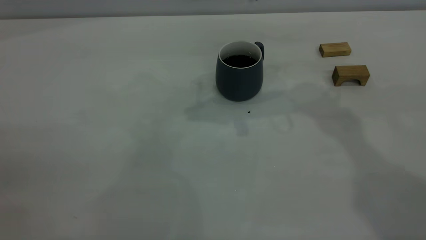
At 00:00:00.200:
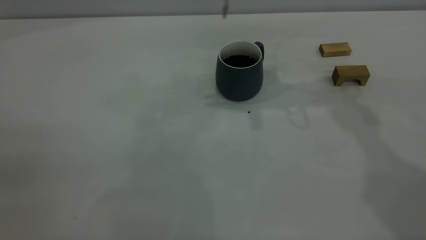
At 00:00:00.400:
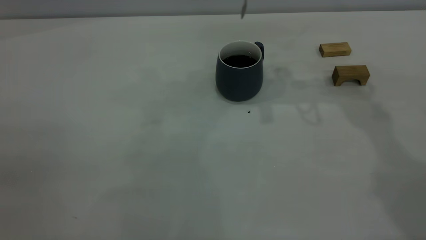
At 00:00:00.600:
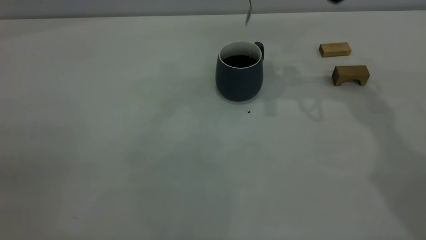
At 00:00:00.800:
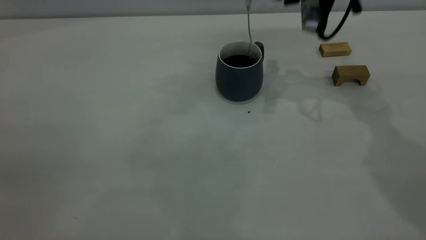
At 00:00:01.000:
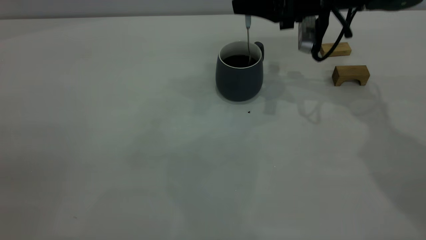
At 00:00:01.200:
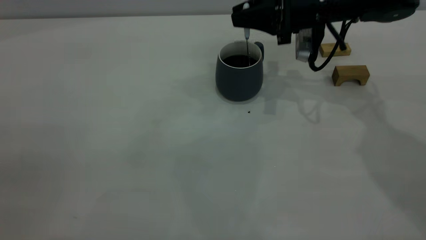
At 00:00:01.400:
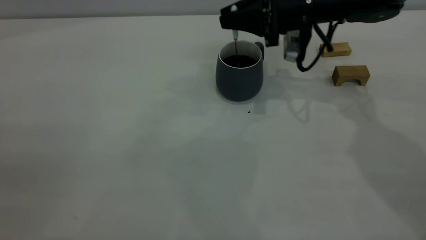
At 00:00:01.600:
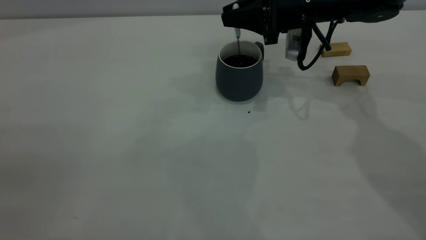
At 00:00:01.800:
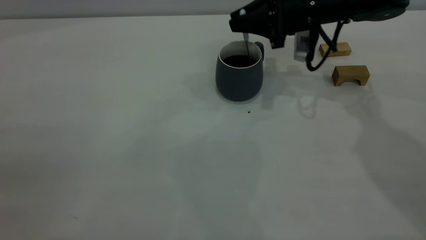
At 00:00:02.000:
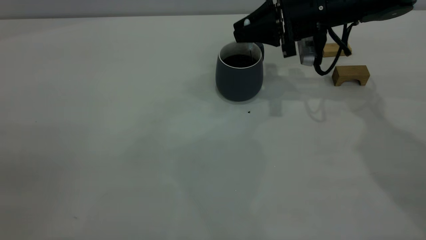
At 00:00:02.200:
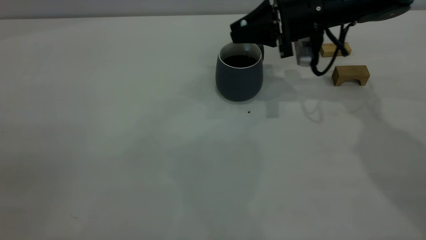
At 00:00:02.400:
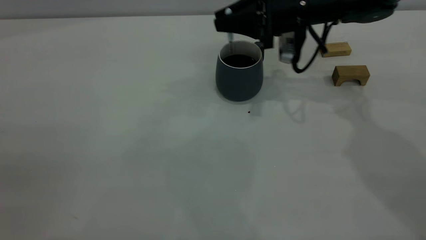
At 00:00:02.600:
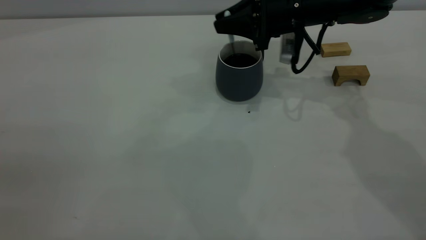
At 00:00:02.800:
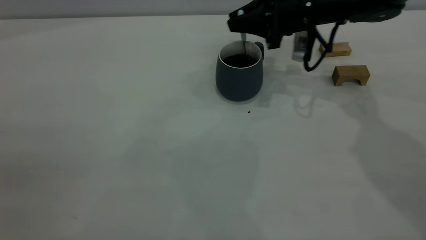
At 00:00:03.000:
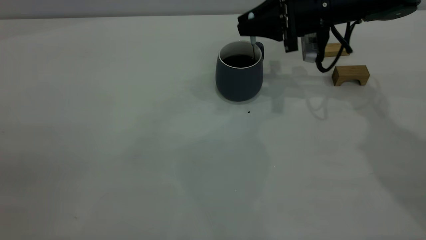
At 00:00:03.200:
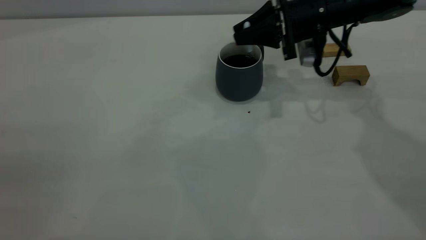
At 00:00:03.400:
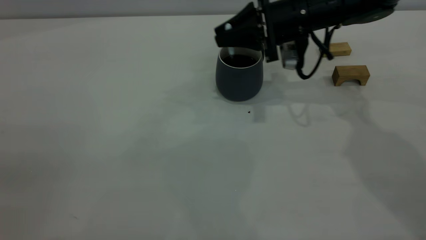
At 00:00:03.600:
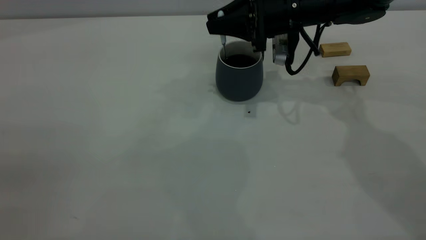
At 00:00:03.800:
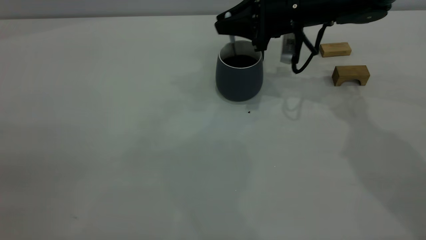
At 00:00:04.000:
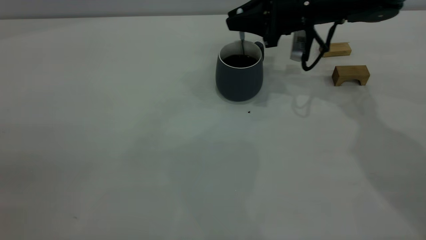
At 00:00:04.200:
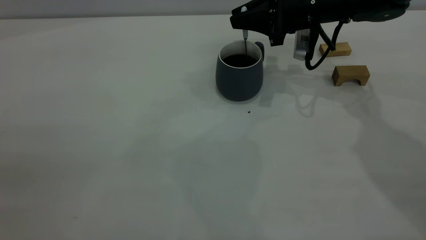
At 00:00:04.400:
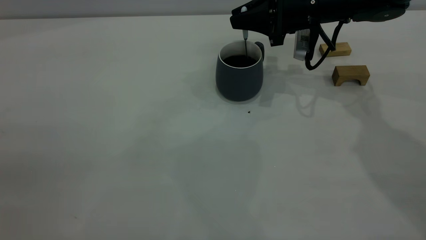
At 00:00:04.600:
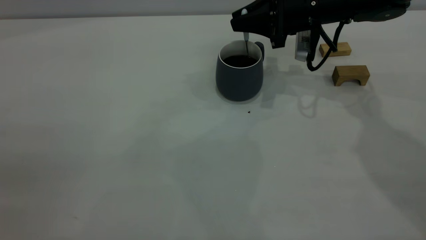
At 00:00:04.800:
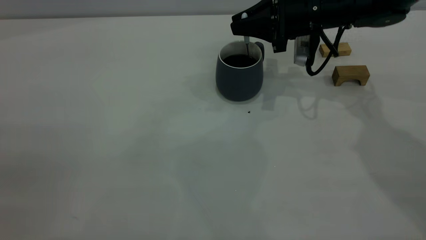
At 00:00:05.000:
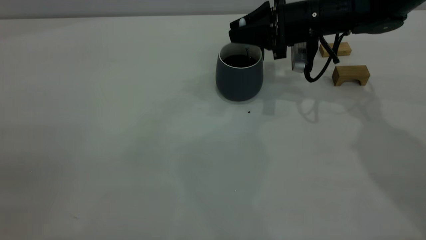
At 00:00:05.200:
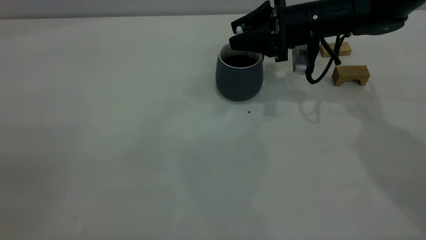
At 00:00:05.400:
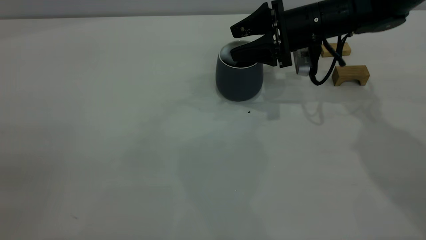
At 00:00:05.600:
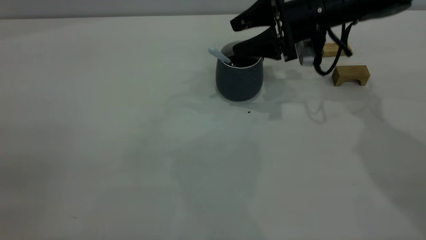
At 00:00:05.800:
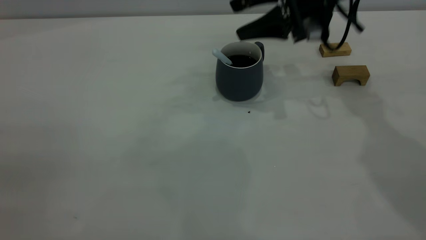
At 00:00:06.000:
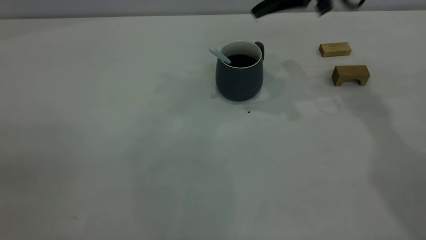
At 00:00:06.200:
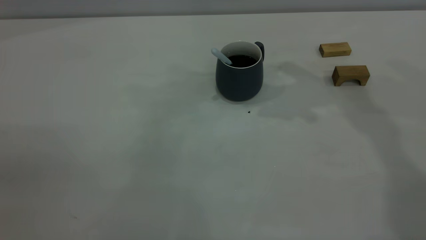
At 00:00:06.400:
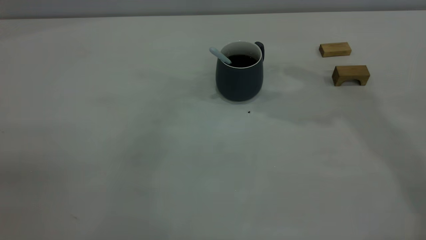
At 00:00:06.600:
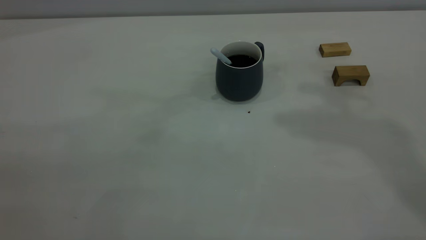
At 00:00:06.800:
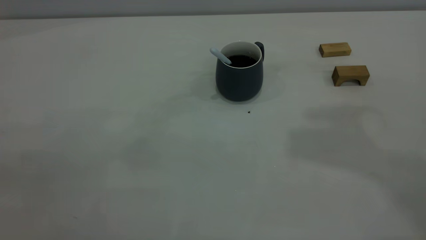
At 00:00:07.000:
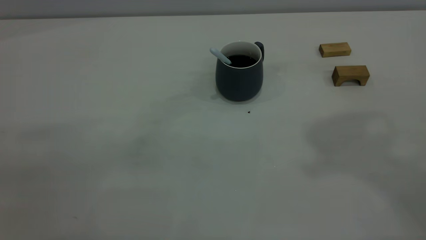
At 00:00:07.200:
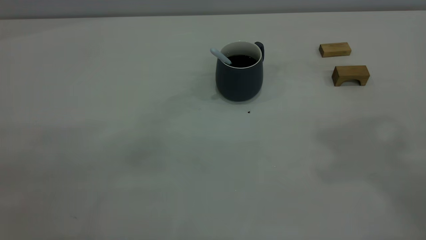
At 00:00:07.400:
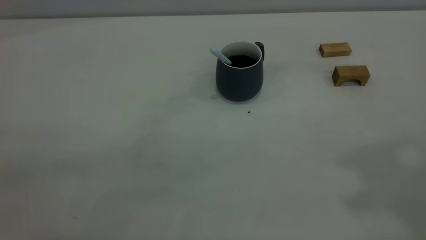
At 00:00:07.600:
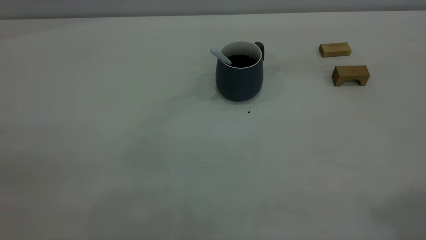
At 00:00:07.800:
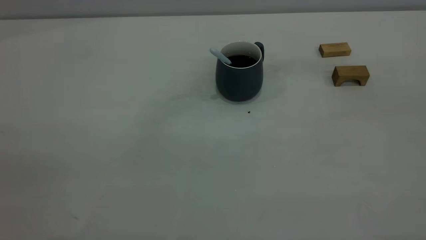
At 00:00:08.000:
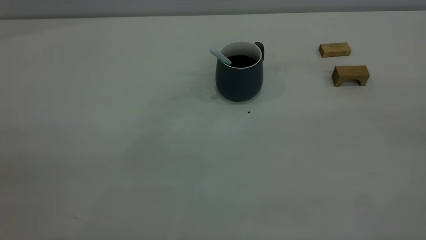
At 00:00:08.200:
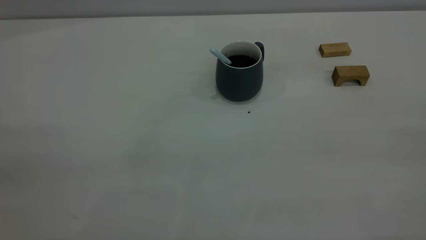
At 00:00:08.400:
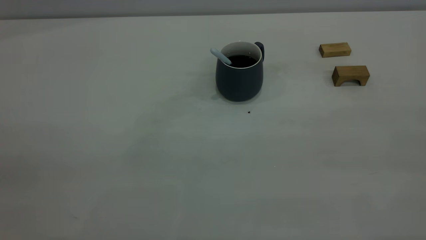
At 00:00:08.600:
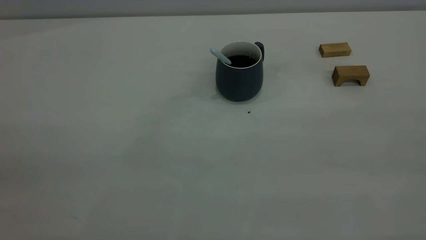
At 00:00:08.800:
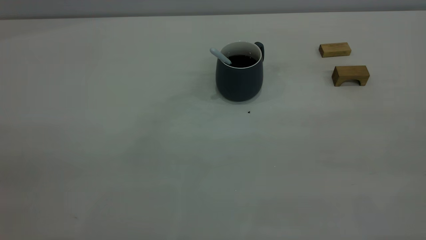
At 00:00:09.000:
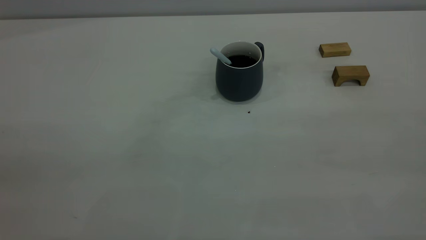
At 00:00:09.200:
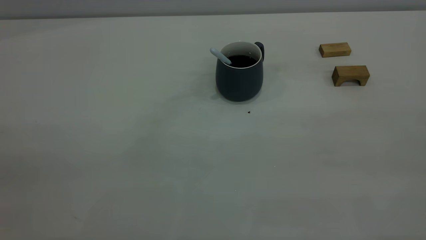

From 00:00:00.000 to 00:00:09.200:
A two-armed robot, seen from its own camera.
Step, from 00:00:00.000 to 00:00:05.800: Stir the coffee in the cup.
From 00:00:00.000 to 00:00:01.600: The right gripper goes roughly 15 cm downward and to the right.
From 00:00:01.600 to 00:00:04.600: The grippers make only small movements.
From 00:00:04.600 to 00:00:06.200: The right gripper goes some 20 cm upward, and opens its fingers.
